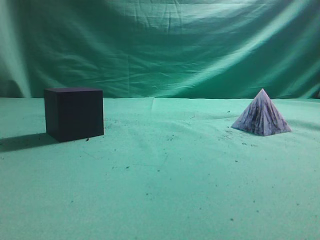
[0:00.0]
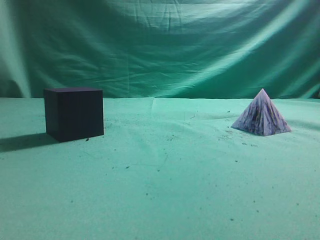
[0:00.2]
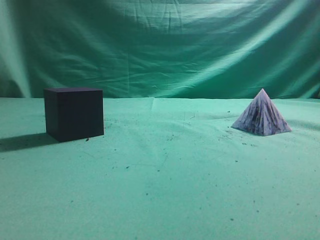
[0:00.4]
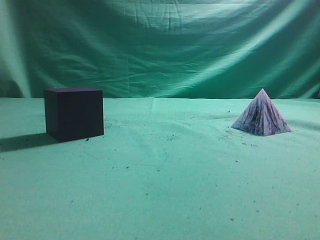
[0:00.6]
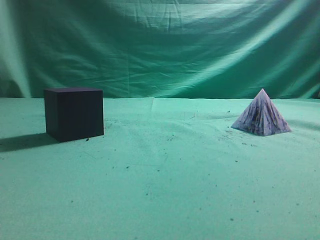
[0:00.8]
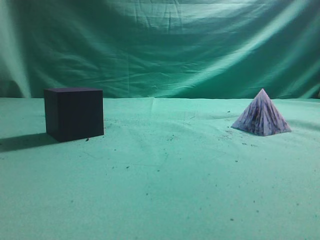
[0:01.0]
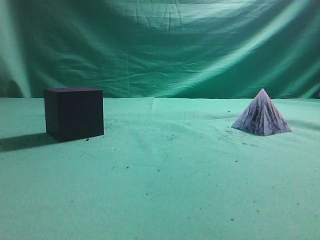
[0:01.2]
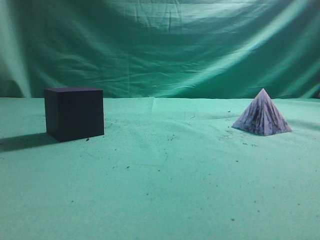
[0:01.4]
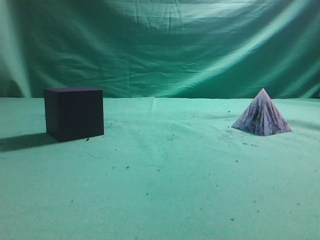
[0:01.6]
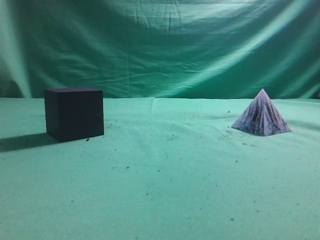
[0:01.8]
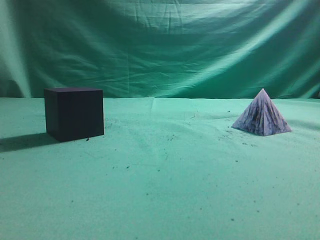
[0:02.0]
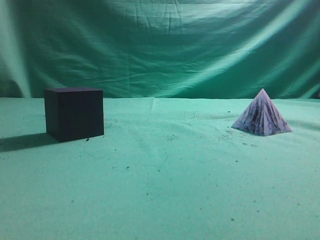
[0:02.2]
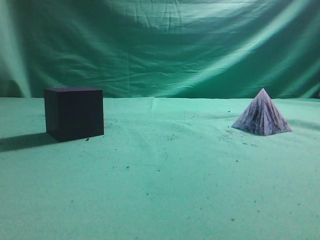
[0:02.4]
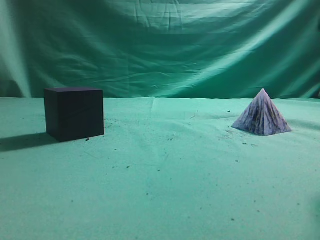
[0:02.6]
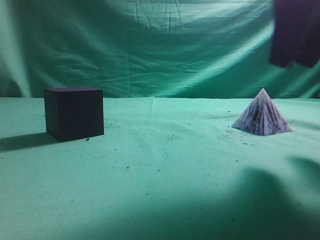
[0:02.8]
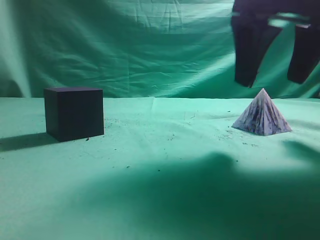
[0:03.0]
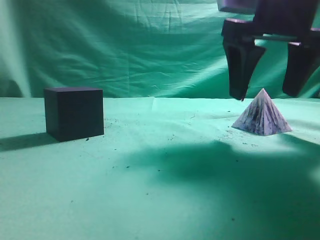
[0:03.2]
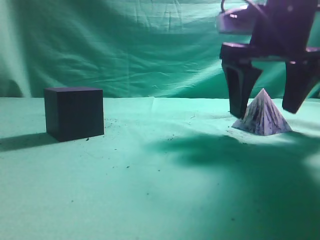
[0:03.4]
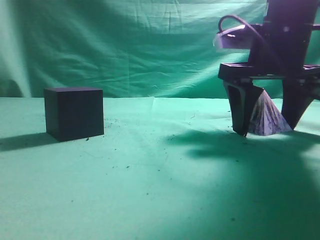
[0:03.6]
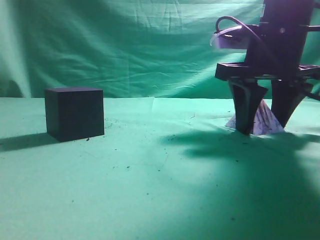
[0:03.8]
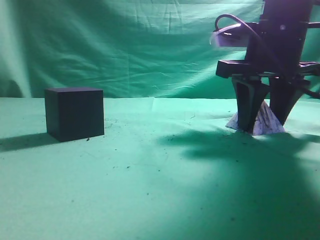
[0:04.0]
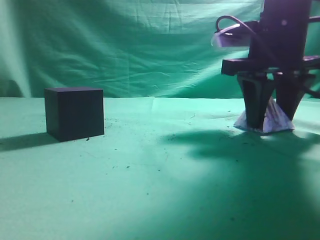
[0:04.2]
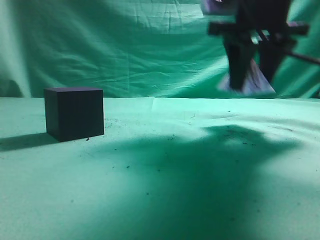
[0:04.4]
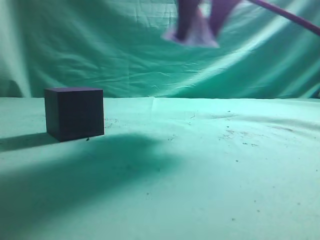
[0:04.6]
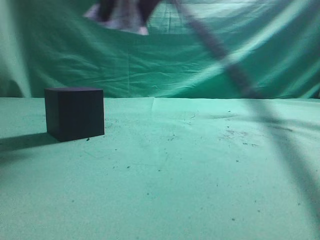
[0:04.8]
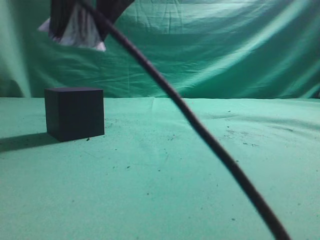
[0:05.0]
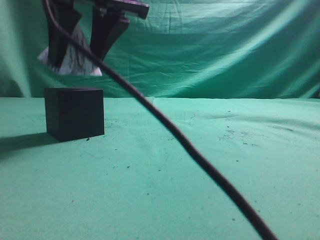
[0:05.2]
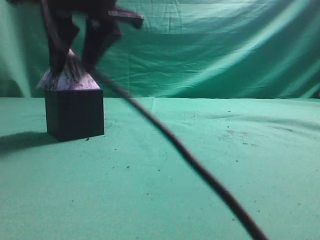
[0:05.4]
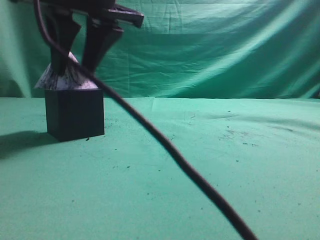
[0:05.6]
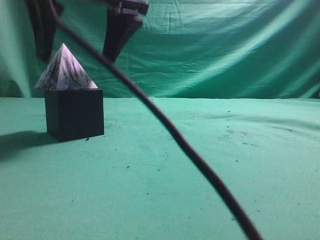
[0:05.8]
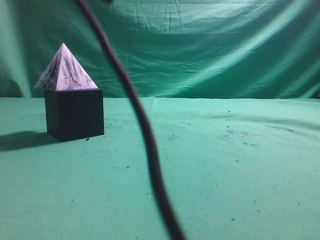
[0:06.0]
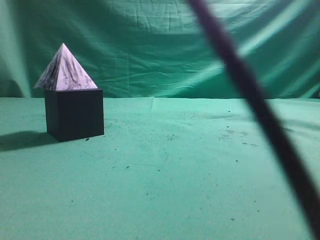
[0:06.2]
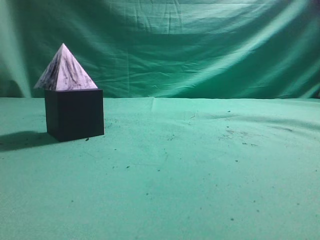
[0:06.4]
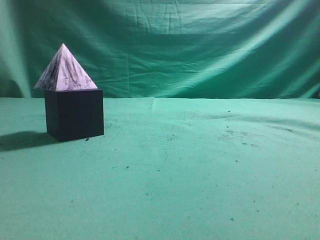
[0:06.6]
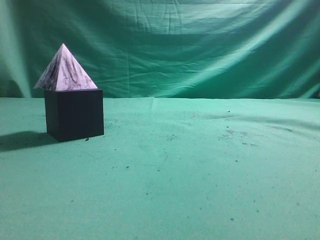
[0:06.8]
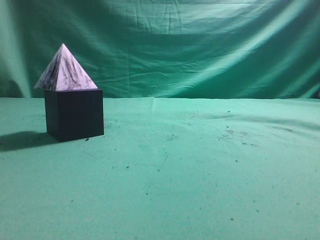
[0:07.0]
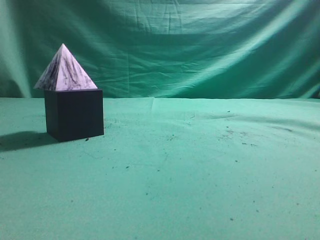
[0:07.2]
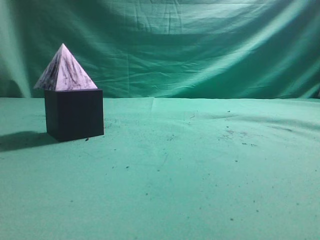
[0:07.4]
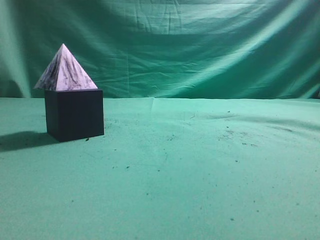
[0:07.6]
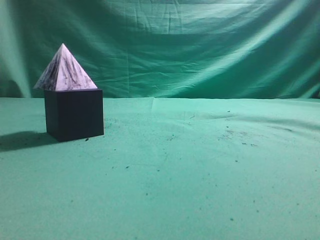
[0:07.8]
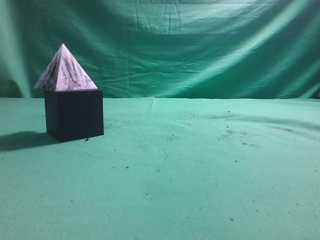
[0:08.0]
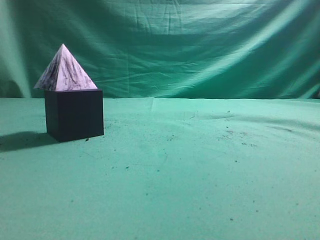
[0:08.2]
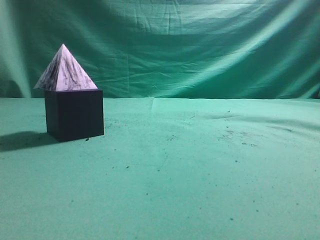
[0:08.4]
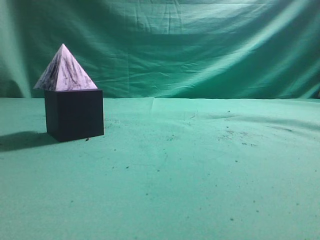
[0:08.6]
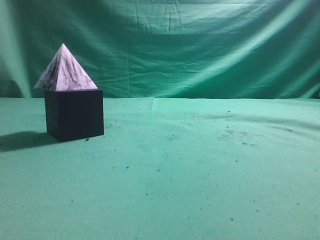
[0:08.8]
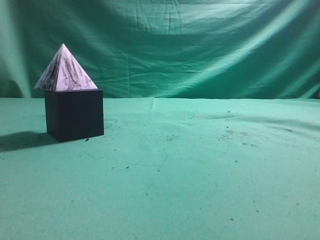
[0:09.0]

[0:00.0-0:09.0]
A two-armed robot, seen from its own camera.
Task of the whole recording: pick up the square pyramid from the table and place it on the cube block.
Step, 0:00.0 to 0:04.4: Grasp the triangular block.
Step, 0:04.6 to 0:05.8: Place the block onto the cube-shaped block.
0:01.6 to 0:03.0: The right gripper travels forward and to the left by roughly 25 cm, and opens up.
0:03.0 to 0:04.4: The right gripper is displaced forward by some 5 cm, and closes up.
0:04.4 to 0:06.0: The right gripper is displaced to the left and upward by approximately 20 cm.
0:06.0 to 0:07.6: The right gripper moves to the right and backward, some 30 cm, and closes.

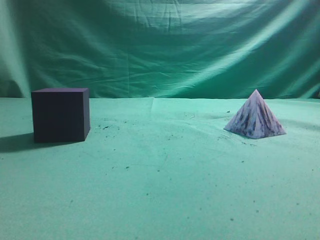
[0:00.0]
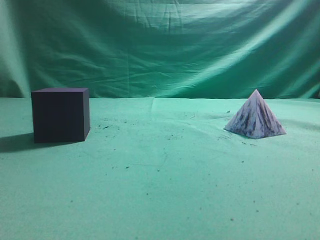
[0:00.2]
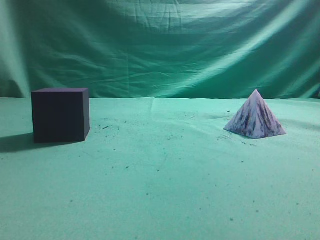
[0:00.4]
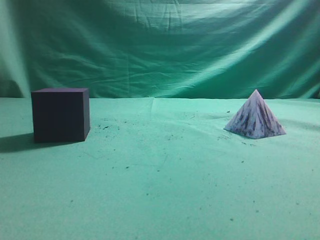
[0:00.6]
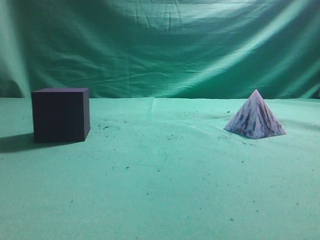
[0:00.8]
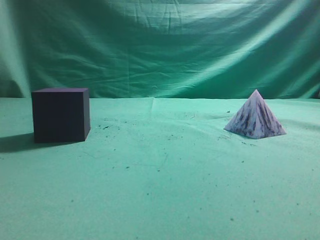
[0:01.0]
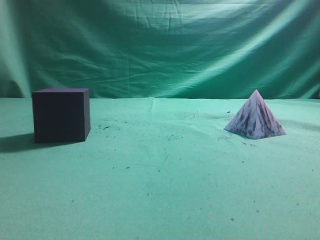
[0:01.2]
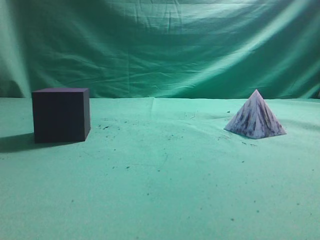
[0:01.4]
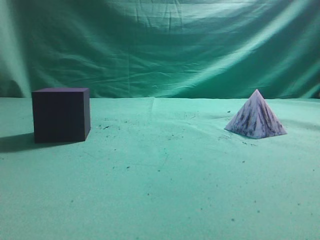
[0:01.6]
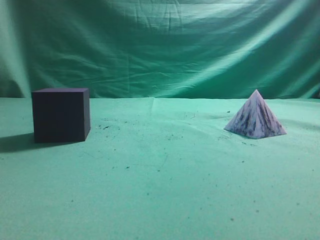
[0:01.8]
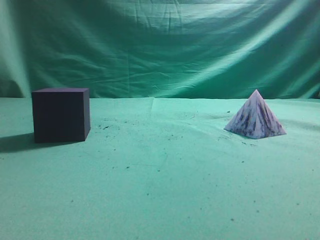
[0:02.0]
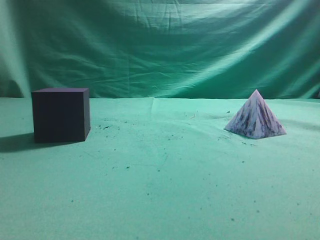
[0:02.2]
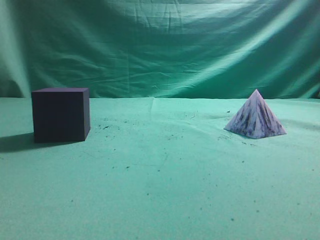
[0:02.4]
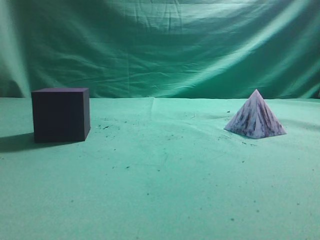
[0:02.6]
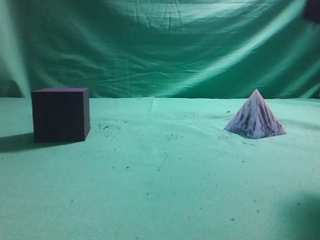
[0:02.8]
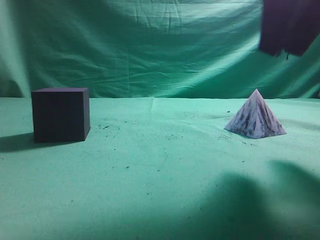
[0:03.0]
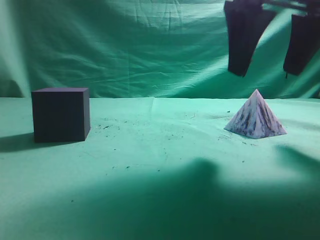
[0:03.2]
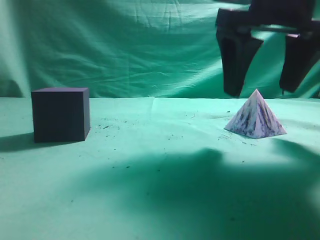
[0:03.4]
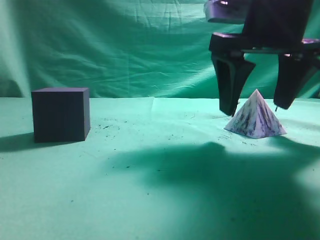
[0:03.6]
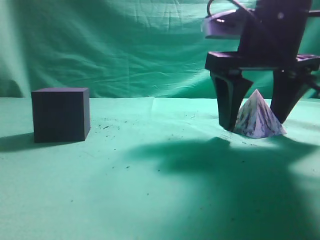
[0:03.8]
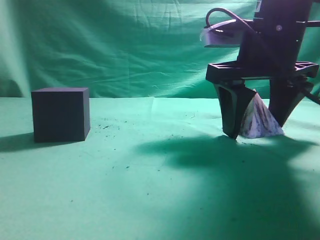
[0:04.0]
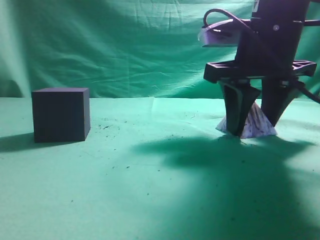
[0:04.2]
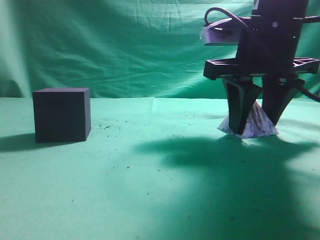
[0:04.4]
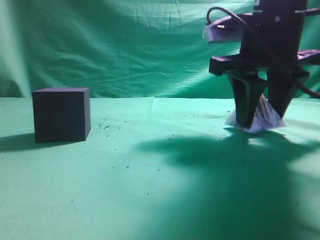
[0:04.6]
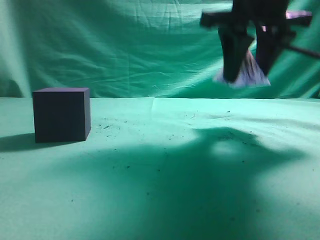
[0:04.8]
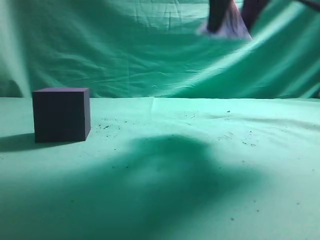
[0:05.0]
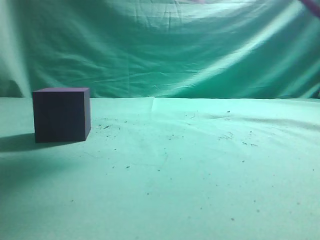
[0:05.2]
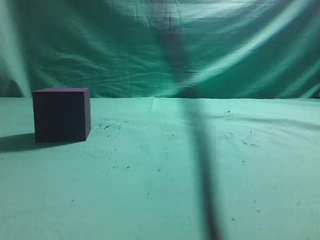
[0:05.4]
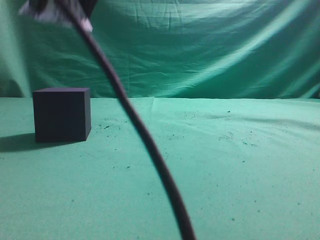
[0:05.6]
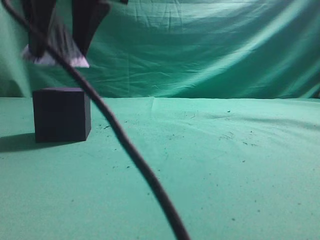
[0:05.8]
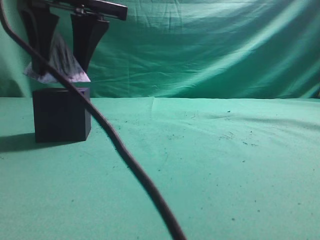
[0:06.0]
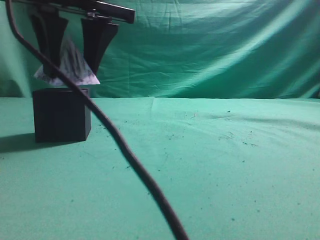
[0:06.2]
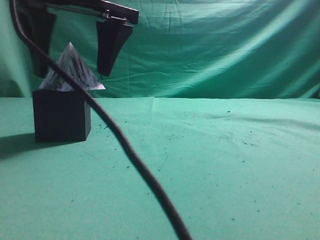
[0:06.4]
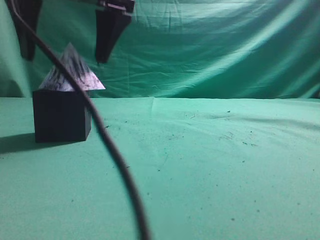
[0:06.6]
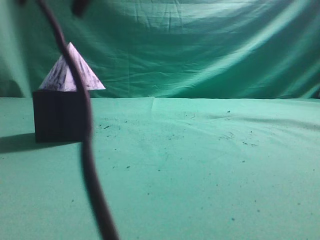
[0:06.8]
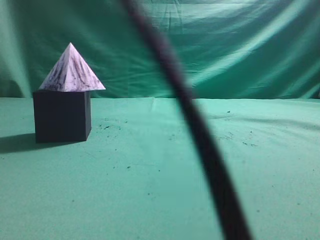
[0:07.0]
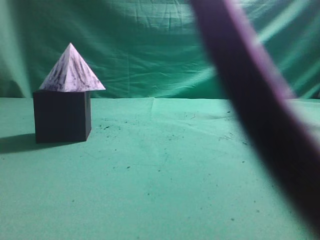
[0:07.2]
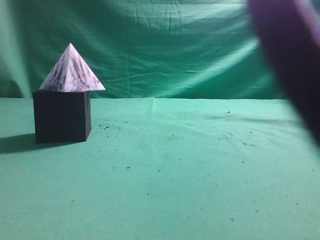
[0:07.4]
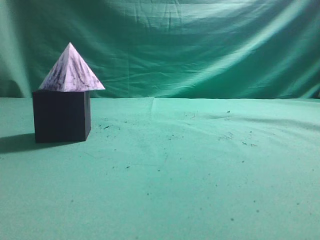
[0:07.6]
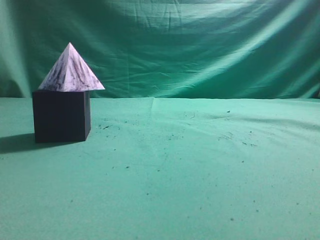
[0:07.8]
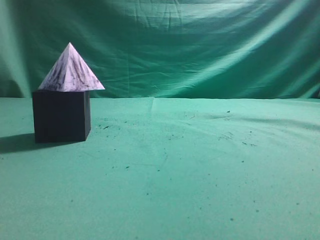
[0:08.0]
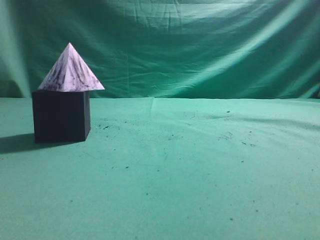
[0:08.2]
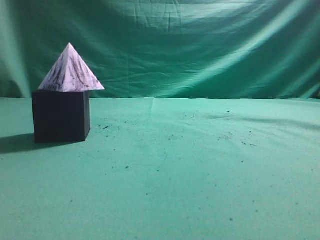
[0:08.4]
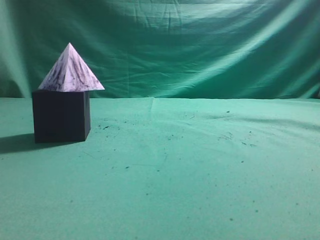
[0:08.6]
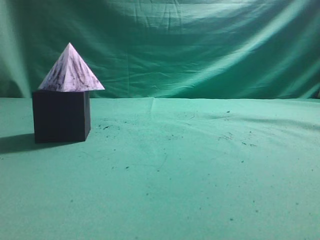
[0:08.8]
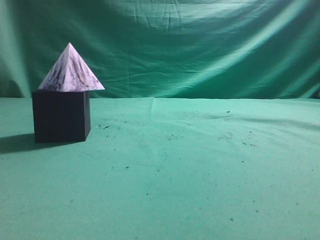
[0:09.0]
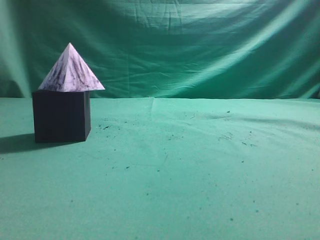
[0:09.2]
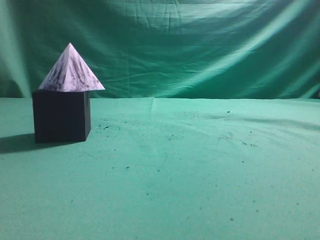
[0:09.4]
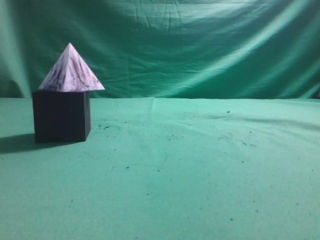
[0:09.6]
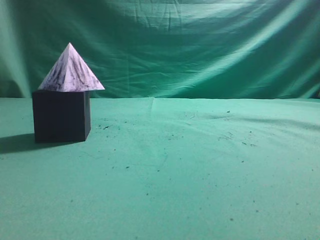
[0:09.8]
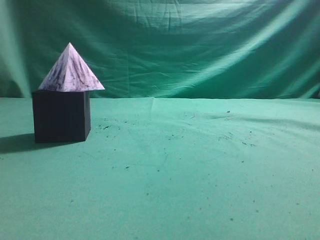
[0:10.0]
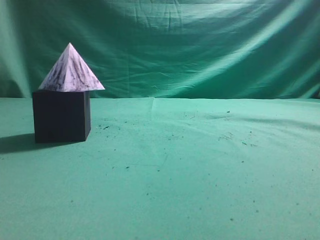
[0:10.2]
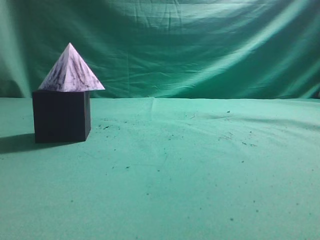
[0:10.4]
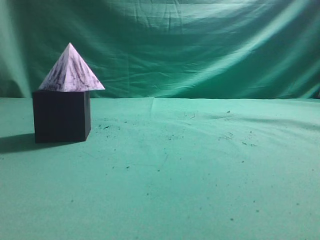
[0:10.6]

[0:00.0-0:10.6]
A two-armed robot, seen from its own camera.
Task of the whole recording: pick up the square pyramid from the table and place it on the cube block.
Step, 0:00.0 to 0:04.6: Grasp the triangular block.
Step, 0:04.8 to 0:06.6: Place the block onto the cube-shaped block.
0:01.6 to 0:03.0: The right gripper heads forward and to the left, covering roughly 25 cm, and opens up.
0:03.0 to 0:04.6: The right gripper moves forward, roughly 5 cm, and closes.
0:04.6 to 0:06.0: The right gripper is displaced to the left by approximately 20 cm.
0:06.0 to 0:07.6: The right gripper travels to the right, upward and backward by some 35 cm, and closes its fingers.
